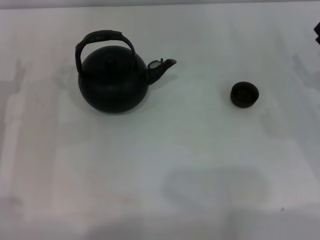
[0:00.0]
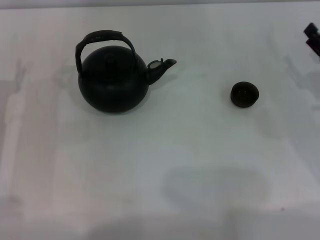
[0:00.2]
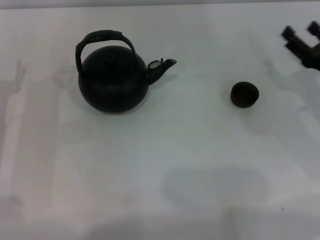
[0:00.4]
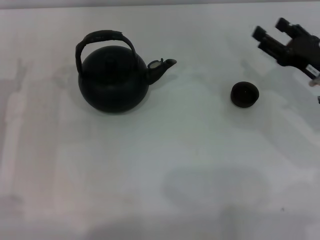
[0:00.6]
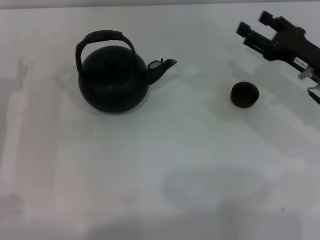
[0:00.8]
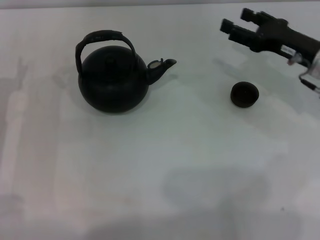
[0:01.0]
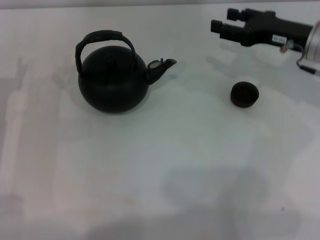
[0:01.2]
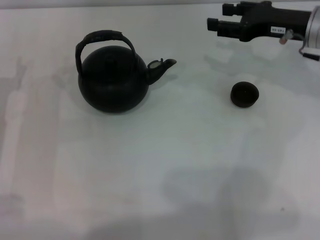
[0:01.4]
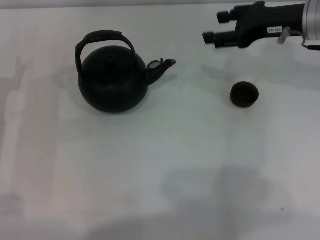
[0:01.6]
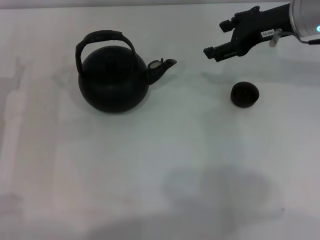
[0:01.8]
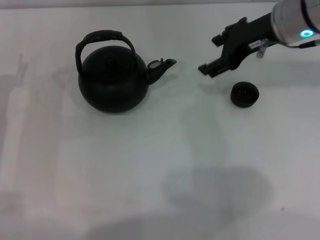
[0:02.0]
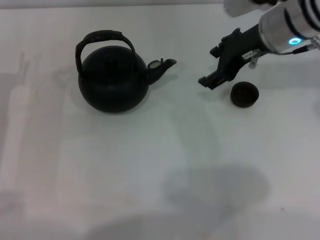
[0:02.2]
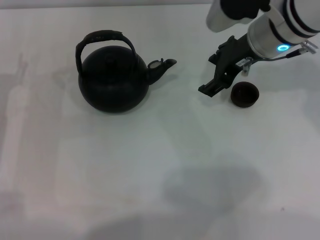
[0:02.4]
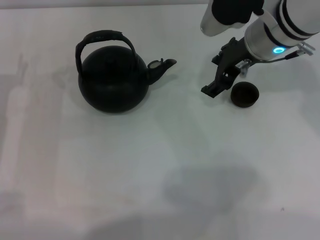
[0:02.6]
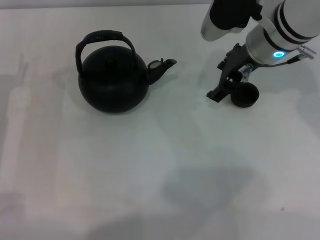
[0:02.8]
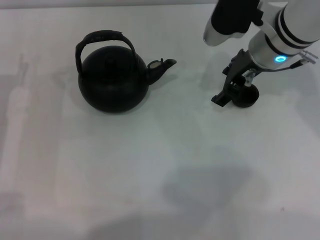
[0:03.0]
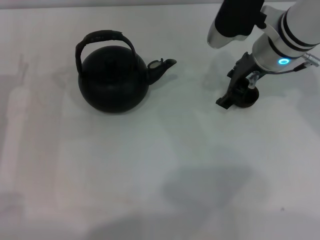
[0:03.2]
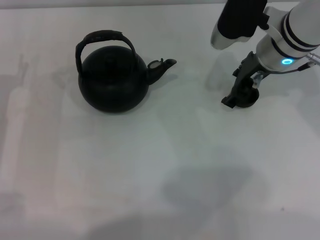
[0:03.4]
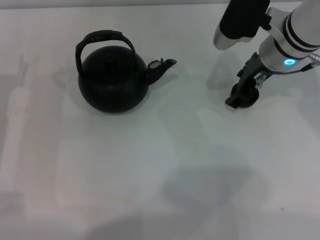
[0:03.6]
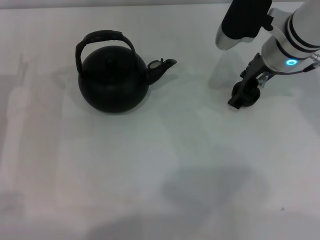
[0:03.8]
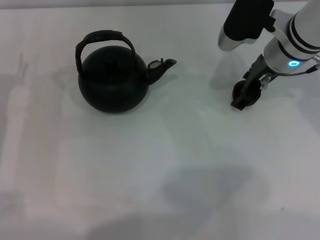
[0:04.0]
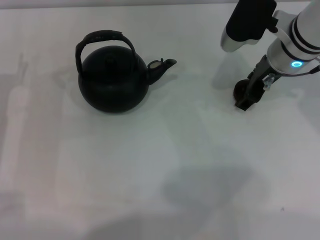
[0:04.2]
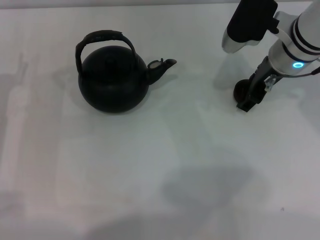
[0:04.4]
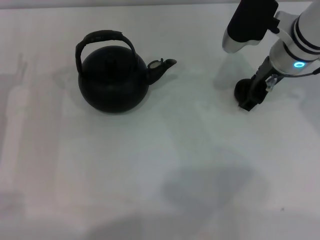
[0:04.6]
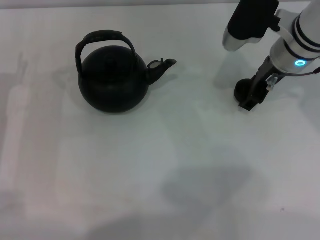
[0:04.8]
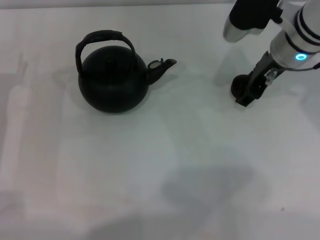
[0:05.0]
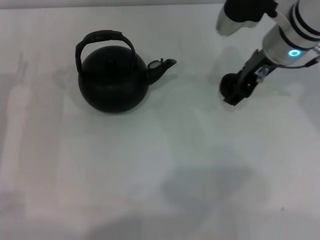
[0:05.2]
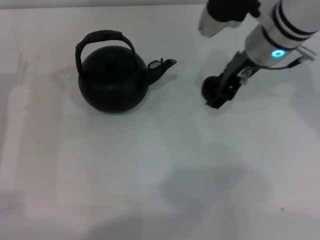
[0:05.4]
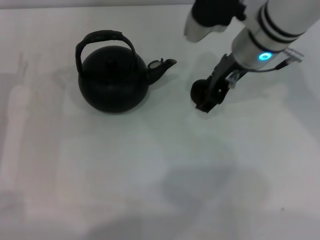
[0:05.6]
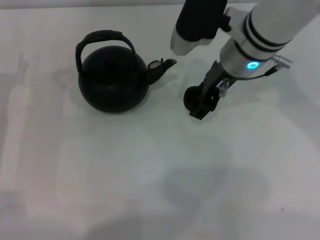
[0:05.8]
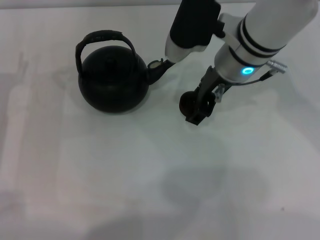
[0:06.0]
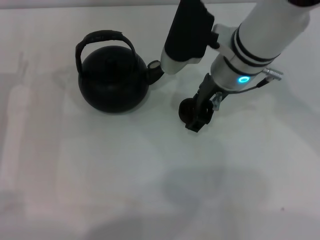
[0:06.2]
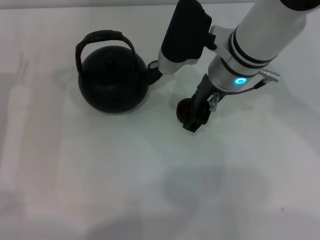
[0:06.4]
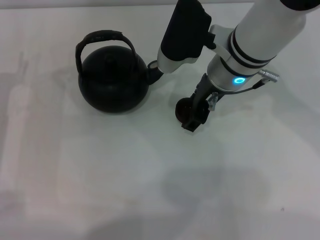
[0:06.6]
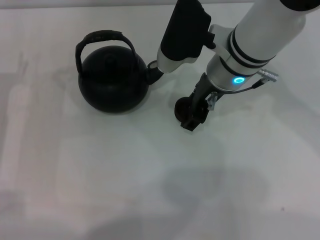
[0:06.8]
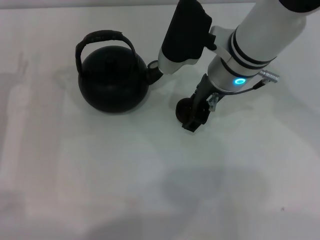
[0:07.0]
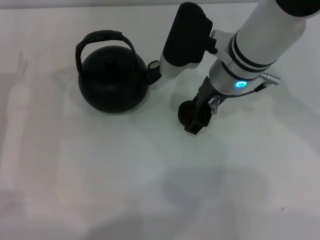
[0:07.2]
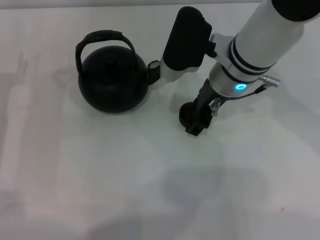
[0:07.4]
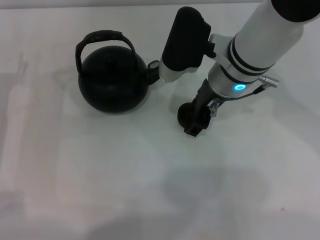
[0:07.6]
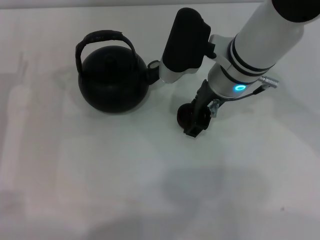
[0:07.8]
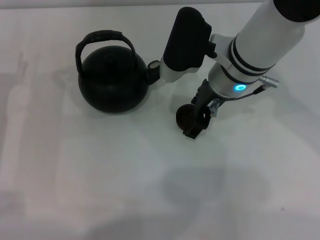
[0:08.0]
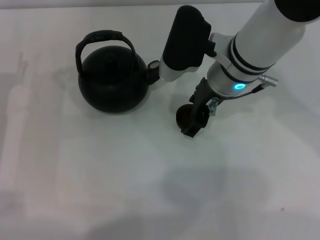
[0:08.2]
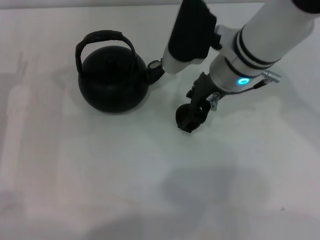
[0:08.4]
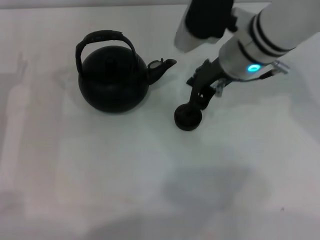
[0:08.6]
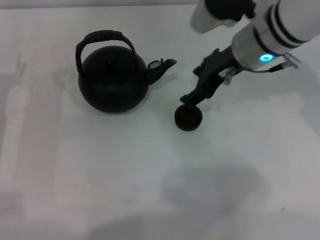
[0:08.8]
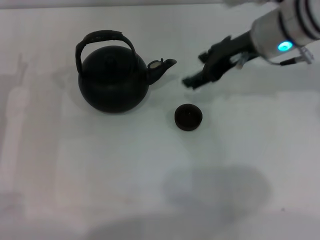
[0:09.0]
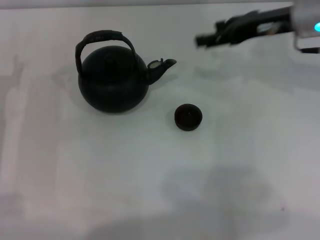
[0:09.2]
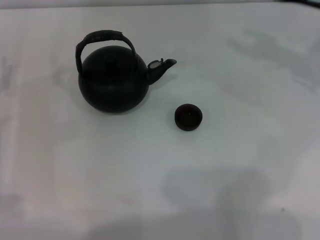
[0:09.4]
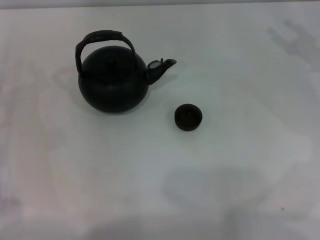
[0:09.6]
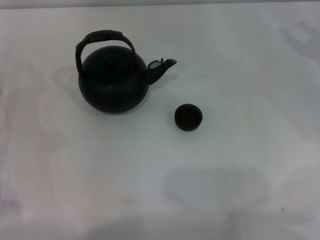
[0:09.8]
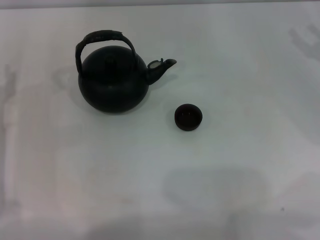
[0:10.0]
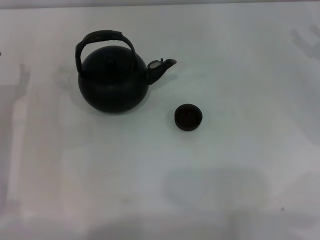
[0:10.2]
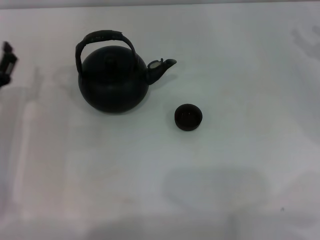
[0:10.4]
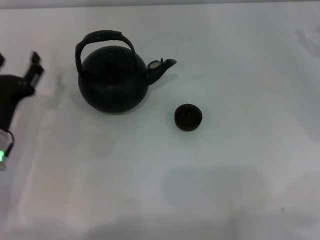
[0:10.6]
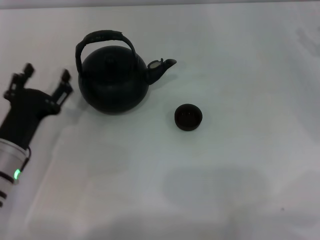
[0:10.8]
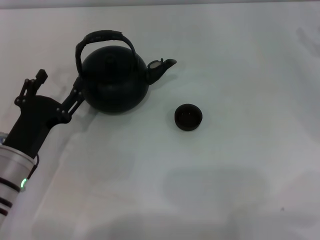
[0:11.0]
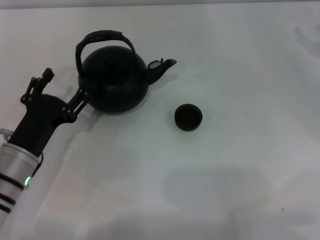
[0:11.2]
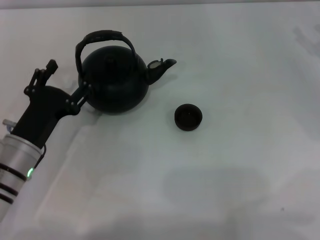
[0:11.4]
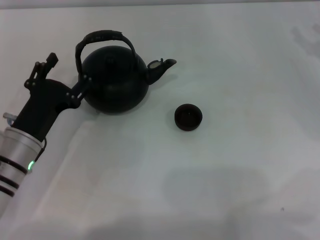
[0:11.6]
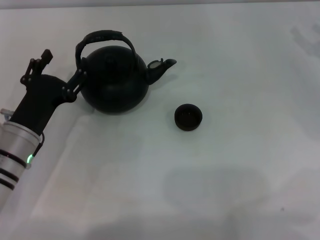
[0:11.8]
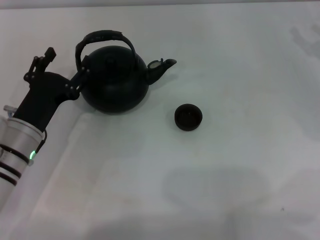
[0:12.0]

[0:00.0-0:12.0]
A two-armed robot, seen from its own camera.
Task of the whole recording: Grasp the handle of the teapot with one hand and pour tea into the teacup.
Step, 0:00.0 to 0:05.6: Pick up the teacup with the right gripper.
Step, 0:05.8 to 0:08.4: Place the teacup in the center of view with the right gripper.
0:00.0 to 0:01.6: The right gripper shifts some 20 cm upward, forward and to the left, and closes its fingers.
0:01.6 to 0:03.0: The right gripper goes roughly 10 cm to the left, and opens up.
0:03.0 to 0:04.4: The grippers stay close to where they were, moving slightly.
0:04.4 to 0:06.0: The right gripper is displaced to the left by some 10 cm, and closes.
0:06.0 to 0:07.6: The grippers stay close to where they were, moving slightly.
0:07.6 to 0:09.0: The right gripper heads to the right, covering some 10 cm, and opens up.
0:09.0 to 0:10.4: The right gripper goes about 20 cm to the right.
0:10.4 to 0:12.0: The left gripper travels to the right by approximately 5 cm.

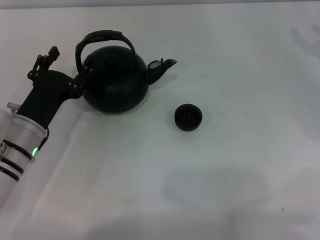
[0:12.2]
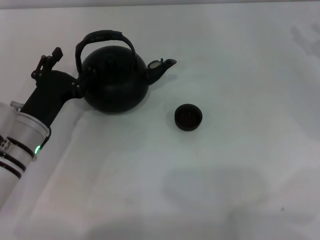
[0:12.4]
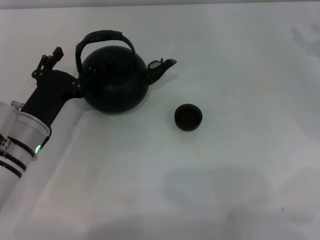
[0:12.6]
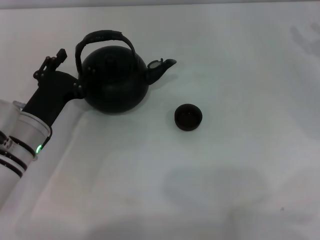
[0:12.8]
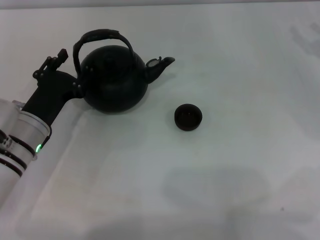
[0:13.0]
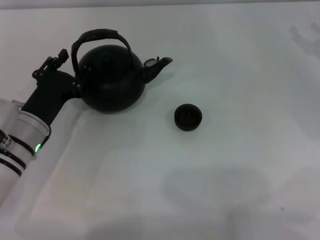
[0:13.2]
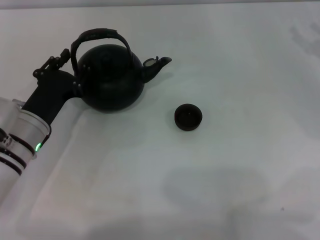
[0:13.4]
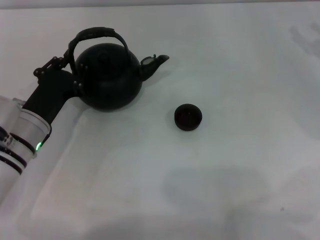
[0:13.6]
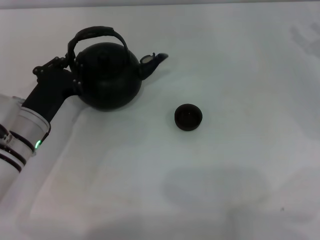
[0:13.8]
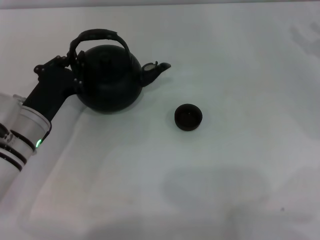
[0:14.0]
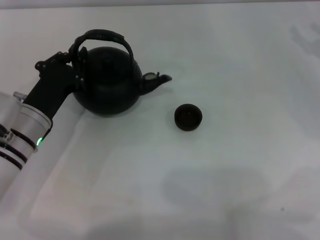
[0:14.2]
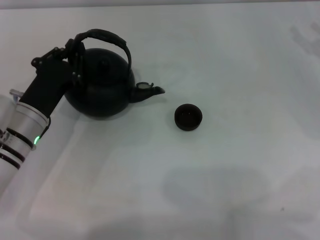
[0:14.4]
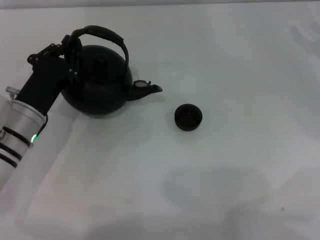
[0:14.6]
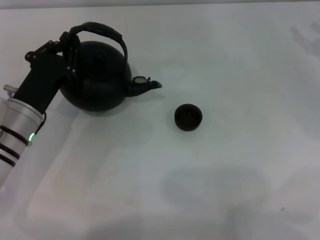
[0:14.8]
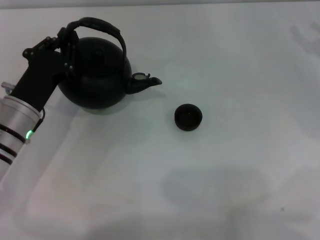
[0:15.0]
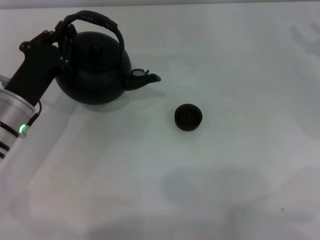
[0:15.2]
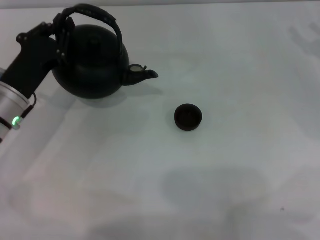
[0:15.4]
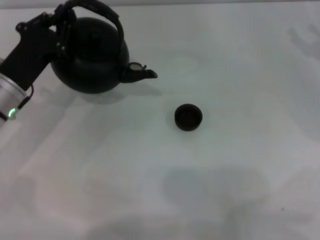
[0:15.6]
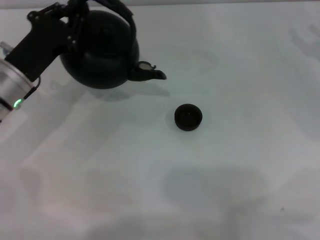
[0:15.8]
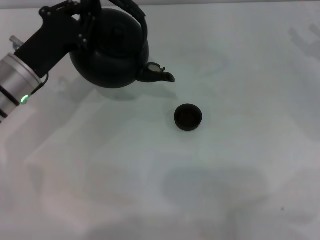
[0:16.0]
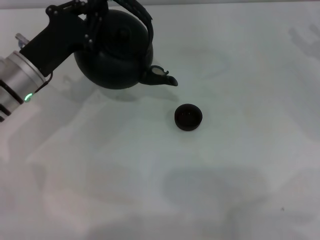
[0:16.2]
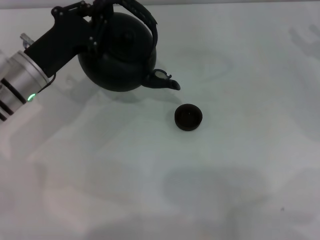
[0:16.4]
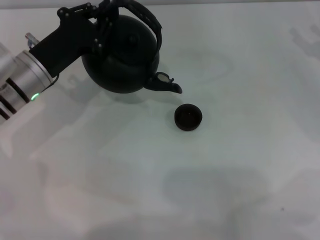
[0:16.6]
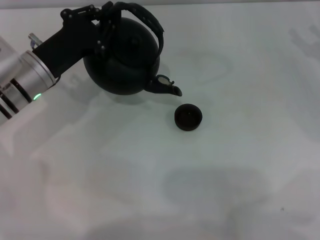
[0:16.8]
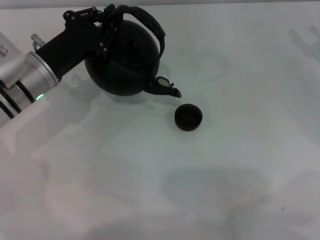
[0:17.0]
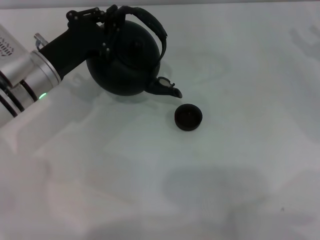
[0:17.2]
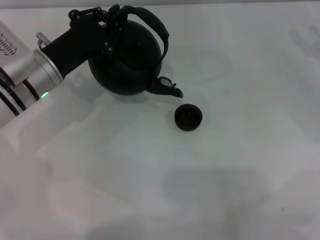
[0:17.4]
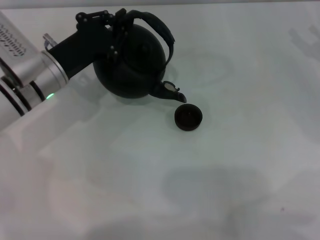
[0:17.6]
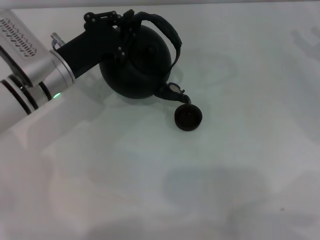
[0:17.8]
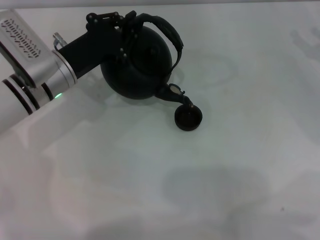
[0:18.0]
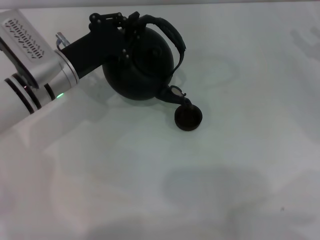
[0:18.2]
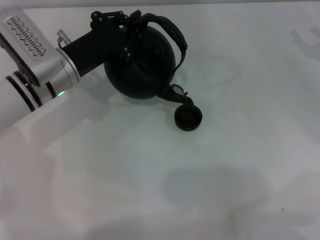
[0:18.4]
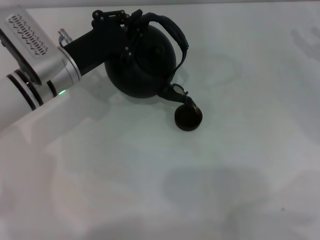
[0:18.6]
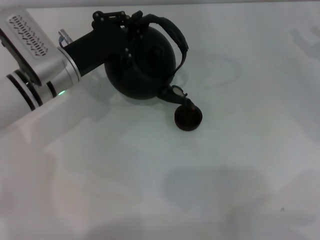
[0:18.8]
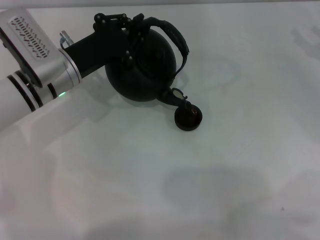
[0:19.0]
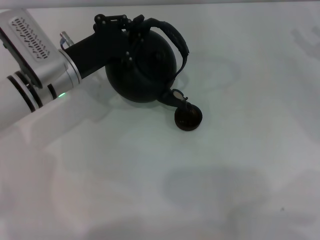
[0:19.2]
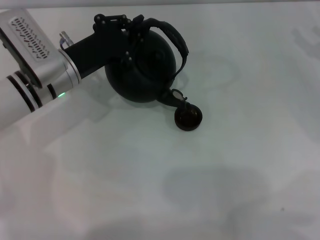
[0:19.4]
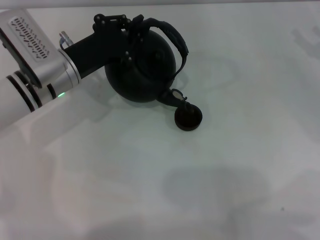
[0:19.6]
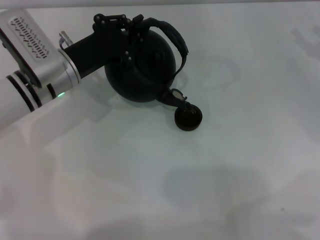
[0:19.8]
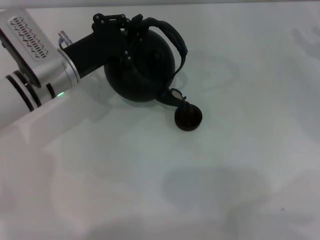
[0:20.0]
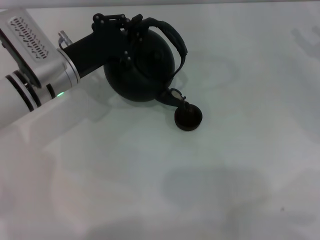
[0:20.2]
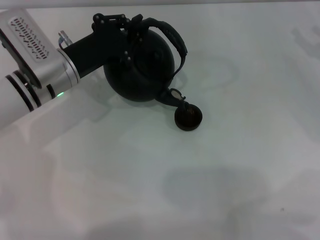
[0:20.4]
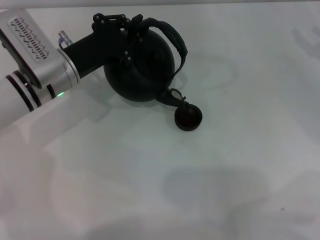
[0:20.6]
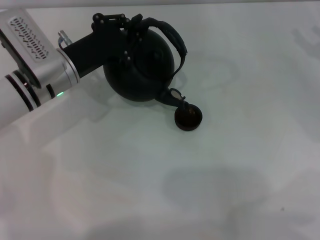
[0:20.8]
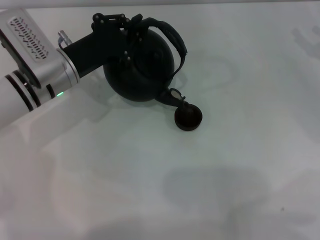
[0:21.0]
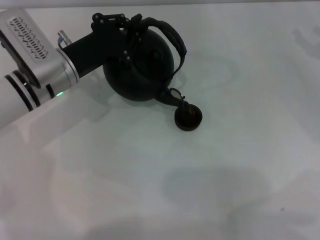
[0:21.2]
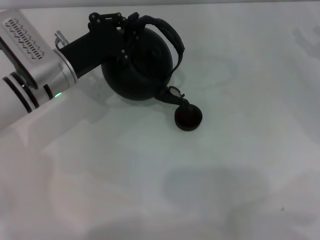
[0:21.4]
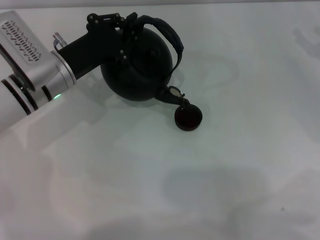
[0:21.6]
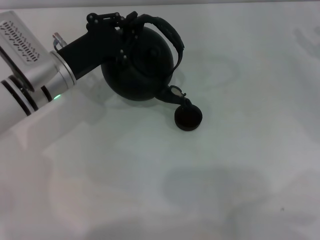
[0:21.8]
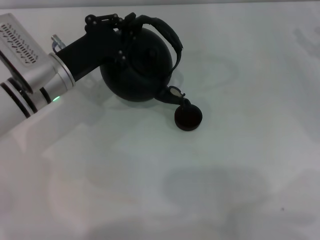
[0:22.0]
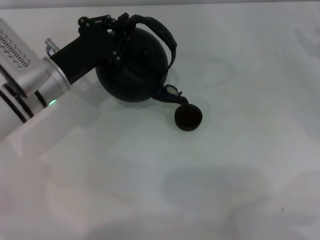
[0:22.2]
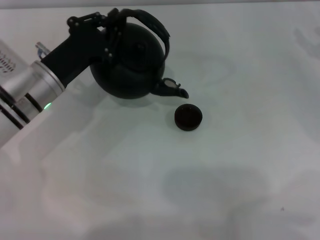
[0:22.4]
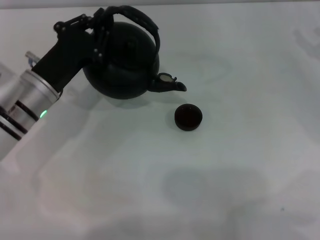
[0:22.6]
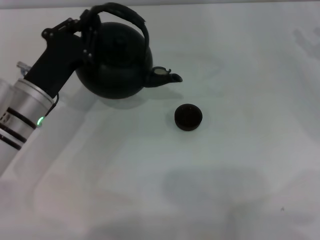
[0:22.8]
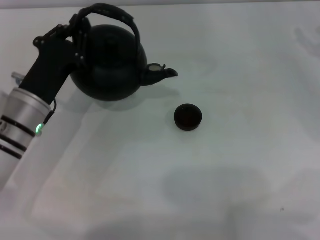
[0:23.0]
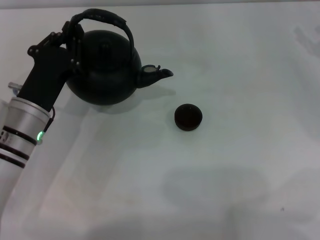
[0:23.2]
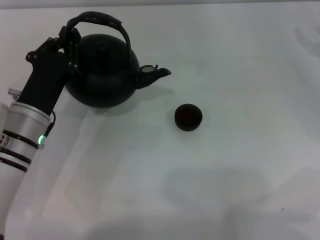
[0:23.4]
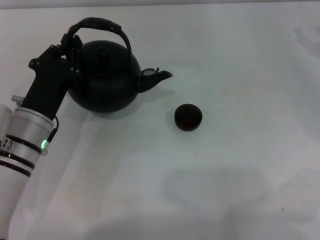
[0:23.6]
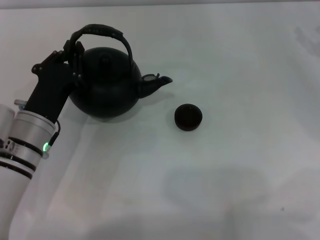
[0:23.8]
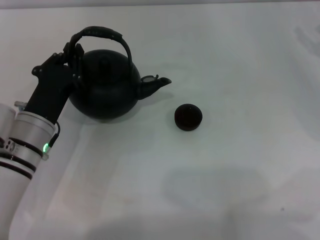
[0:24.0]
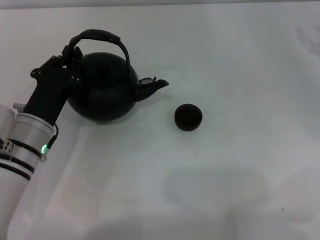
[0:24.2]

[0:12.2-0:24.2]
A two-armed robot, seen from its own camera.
Task of the whole recording: Grasp the handle of the teapot with one hand and pour tea into the teacup.
Step, 0:12.2 to 0:15.0: Pick up the teapot with the left gripper.
Step, 0:15.4 to 0:22.2: Pour tea into the teacup with the left gripper.
0:12.2 to 0:13.8: The left gripper closes up.
0:13.8 to 0:15.2: There are only small adjustments of the grippers.
0:15.2 to 0:16.6: The left gripper ends up about 5 cm from where it was.
0:16.6 to 0:18.2: There are only small adjustments of the grippers.
0:18.2 to 0:21.2: The two grippers keep their place.
0:22.6 to 0:24.2: The left gripper goes some 5 cm backward.
